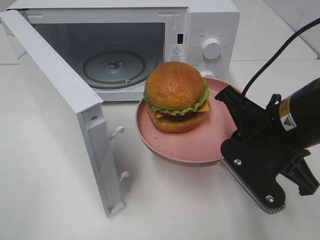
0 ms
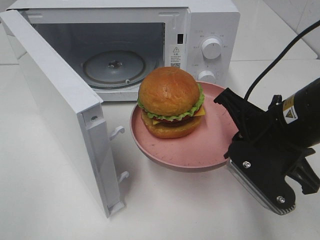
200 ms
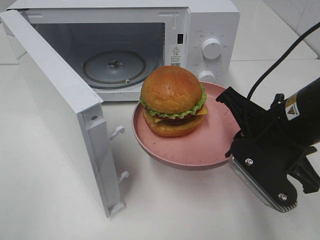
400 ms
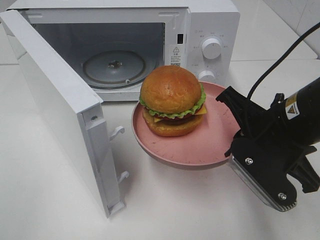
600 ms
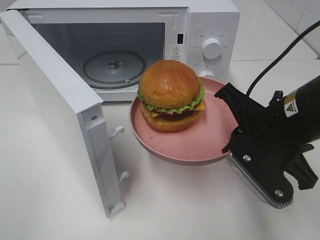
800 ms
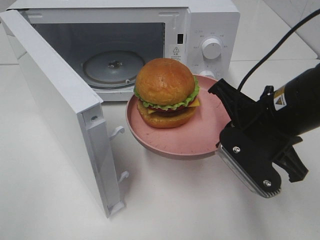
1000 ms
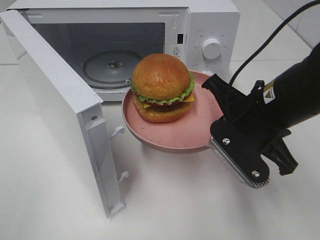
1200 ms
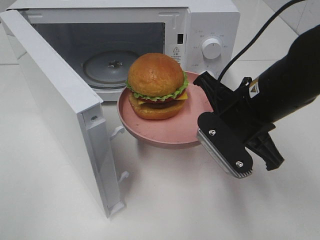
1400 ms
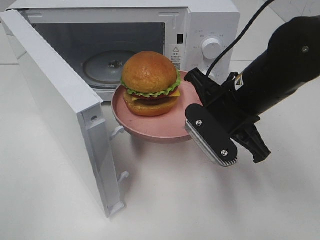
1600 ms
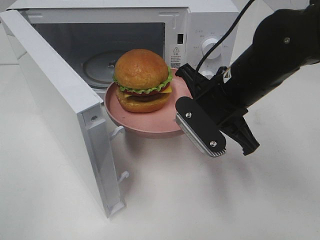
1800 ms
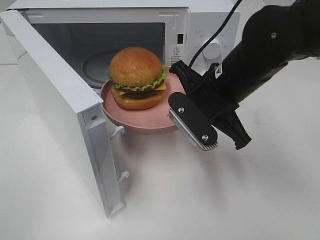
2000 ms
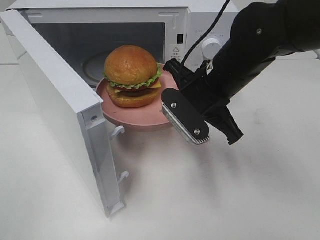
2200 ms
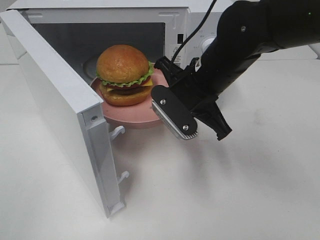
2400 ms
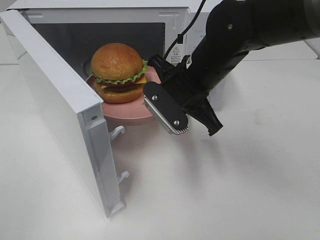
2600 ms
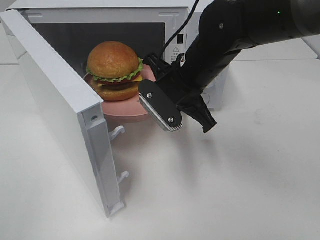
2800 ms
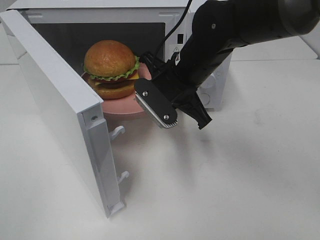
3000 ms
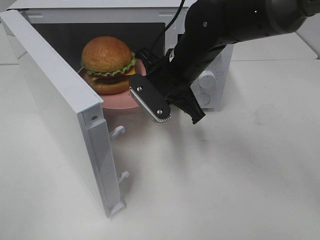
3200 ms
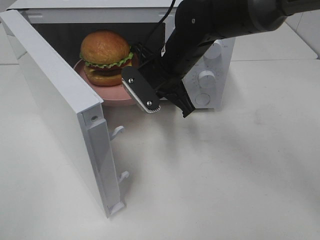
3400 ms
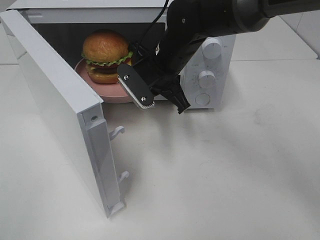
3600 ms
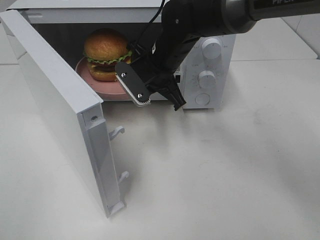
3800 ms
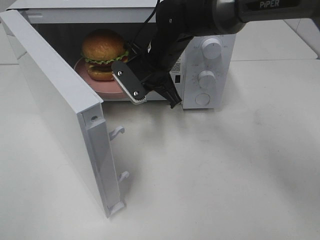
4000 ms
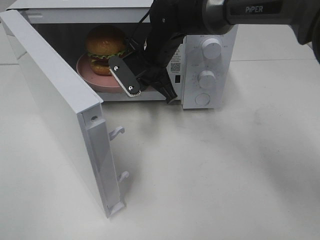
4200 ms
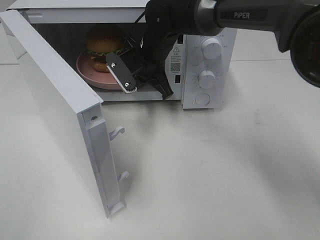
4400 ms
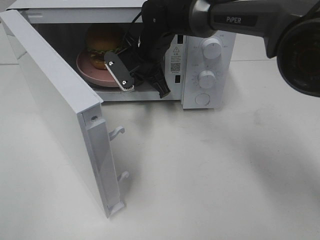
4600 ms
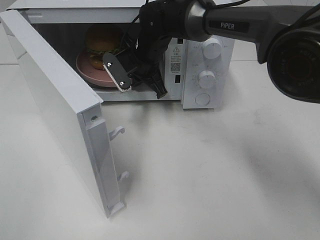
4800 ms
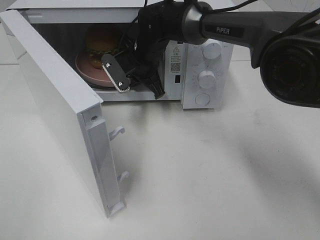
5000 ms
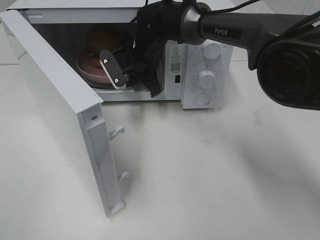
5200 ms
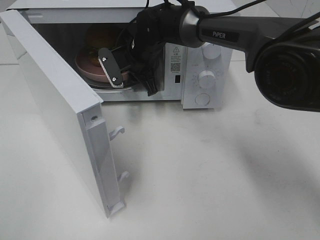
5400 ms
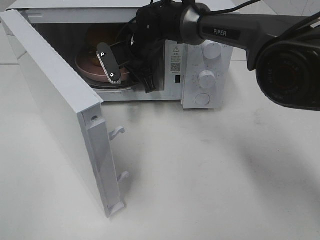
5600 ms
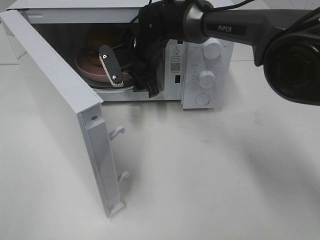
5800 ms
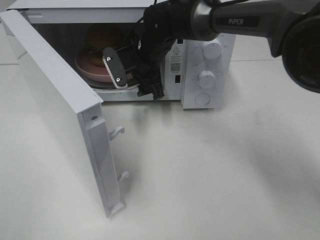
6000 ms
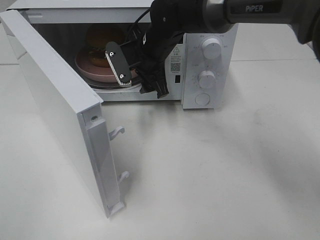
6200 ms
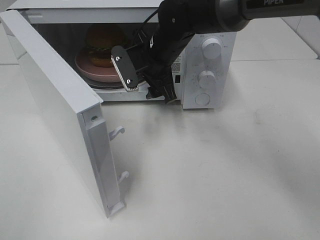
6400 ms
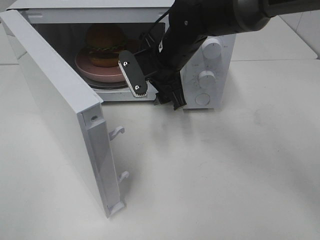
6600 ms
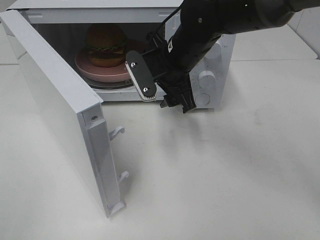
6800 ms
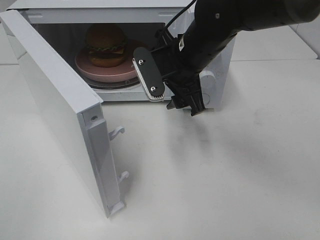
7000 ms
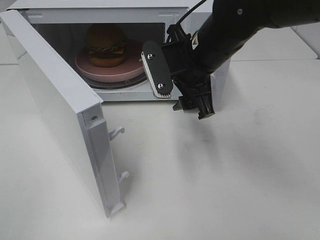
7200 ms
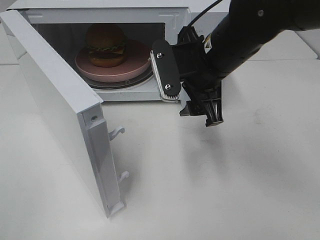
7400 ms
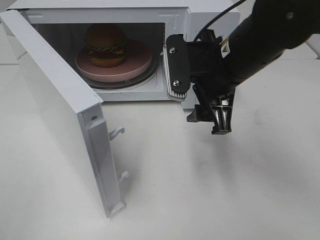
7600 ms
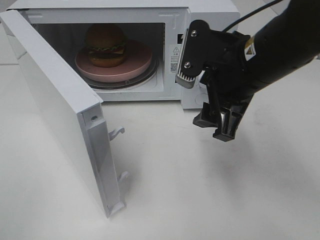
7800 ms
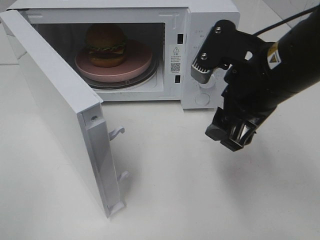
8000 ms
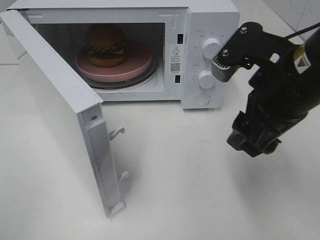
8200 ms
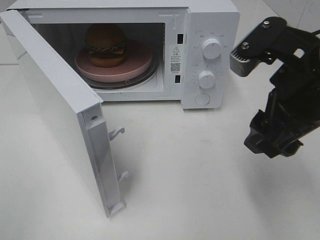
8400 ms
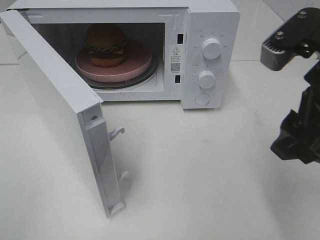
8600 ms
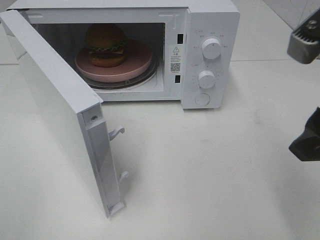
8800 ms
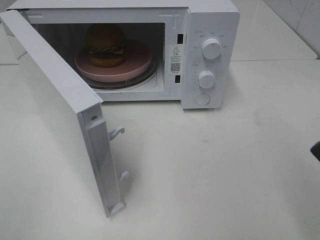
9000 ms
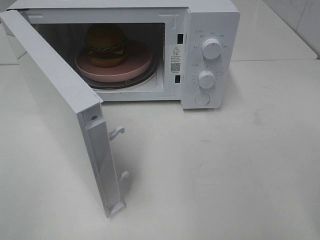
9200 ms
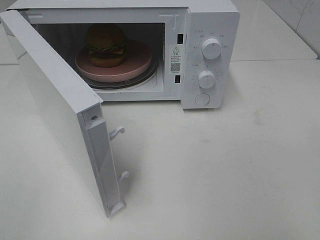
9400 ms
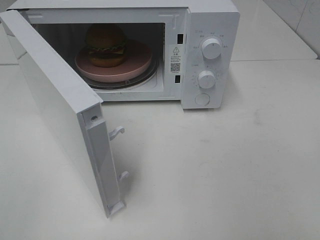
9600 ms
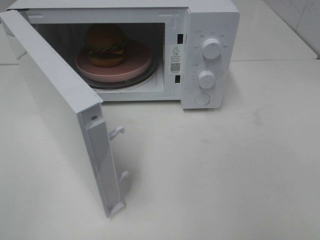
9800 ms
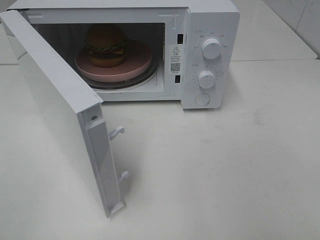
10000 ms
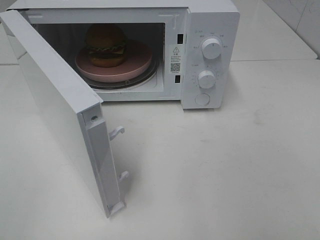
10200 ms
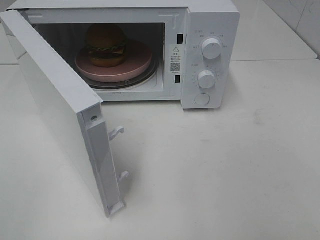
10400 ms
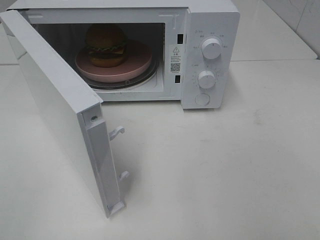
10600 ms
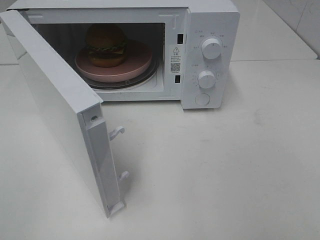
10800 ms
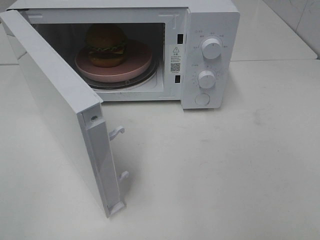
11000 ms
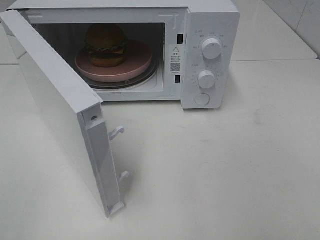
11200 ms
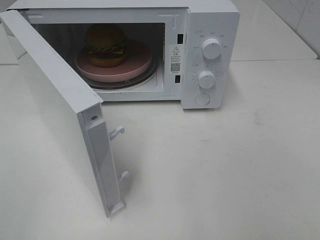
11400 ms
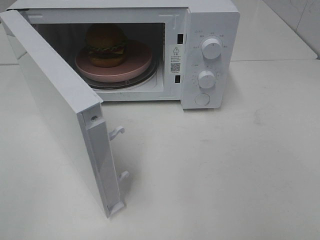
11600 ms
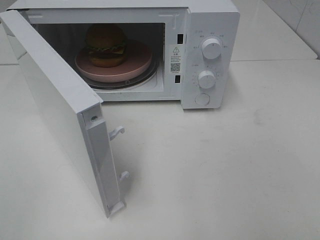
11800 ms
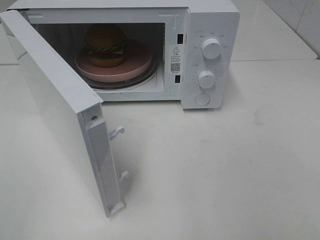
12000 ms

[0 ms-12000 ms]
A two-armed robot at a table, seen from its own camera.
Task of the whole recording: Heat the burger.
Step, 0 ms to 5800 ms: Right hand: place the plate in the microwave.
0 ms to 1600 ms: The right gripper is displaced forward by approximately 5 cm.
1600 ms to 3000 ms: The right gripper is displaced forward and to the left by roughly 10 cm.
3000 ms to 4400 ms: The right gripper shifts about 10 cm forward and to the left.
4400 ms to 6000 ms: The right gripper opens up.
6000 ms to 7600 ms: The right gripper heads backward, to the right and upward, covering approximately 20 cm.
7600 ms to 9000 ms: The right gripper travels backward, to the right and upward by roughly 20 cm.
9000 ms to 10400 ms: The right gripper travels backward and to the right by about 15 cm.
10400 ms to 12000 ms: The two grippers keep their place.

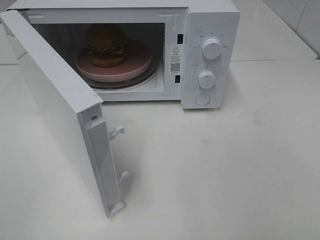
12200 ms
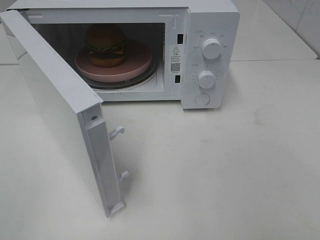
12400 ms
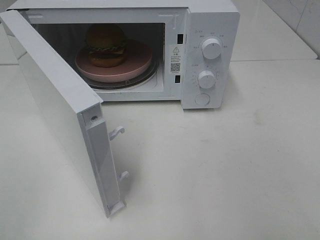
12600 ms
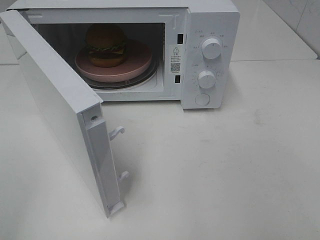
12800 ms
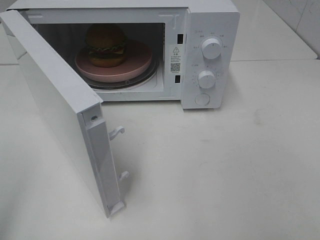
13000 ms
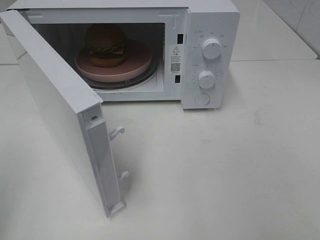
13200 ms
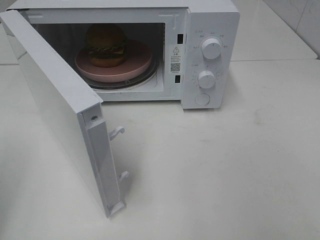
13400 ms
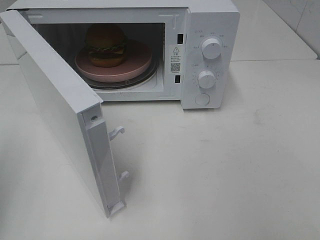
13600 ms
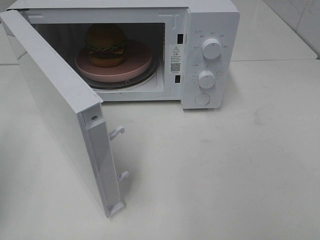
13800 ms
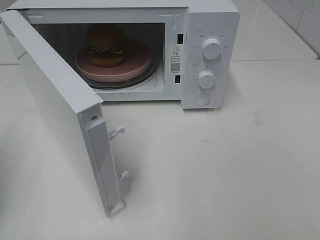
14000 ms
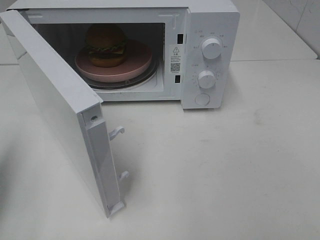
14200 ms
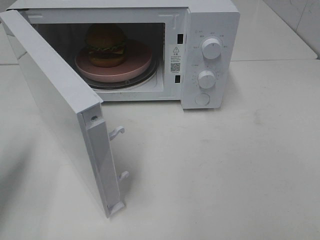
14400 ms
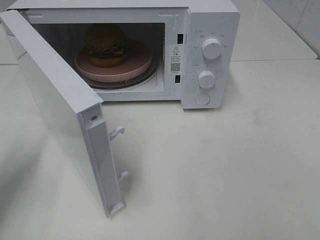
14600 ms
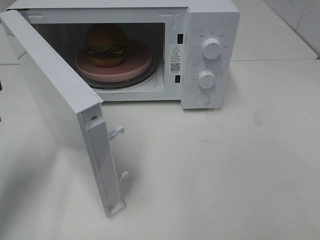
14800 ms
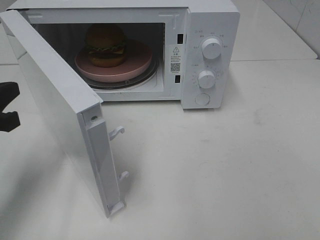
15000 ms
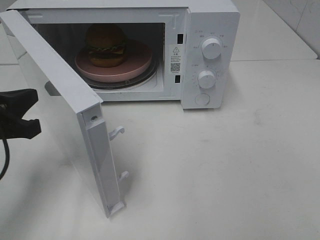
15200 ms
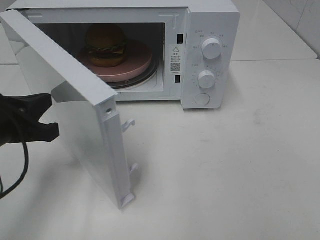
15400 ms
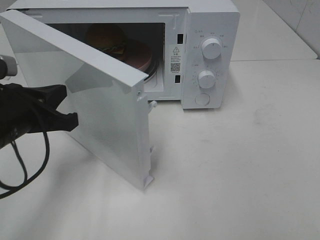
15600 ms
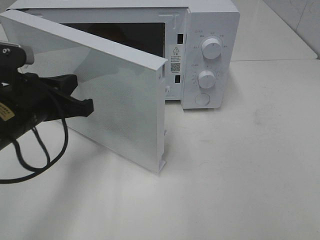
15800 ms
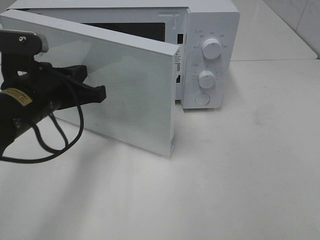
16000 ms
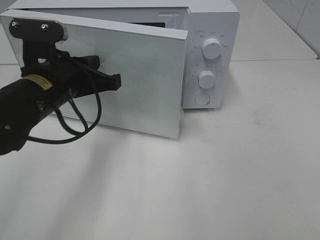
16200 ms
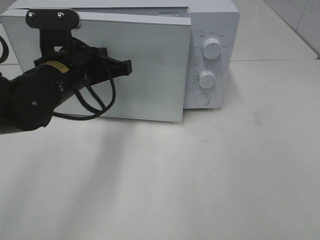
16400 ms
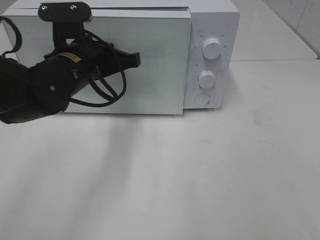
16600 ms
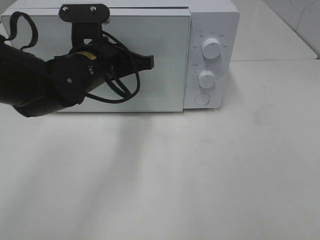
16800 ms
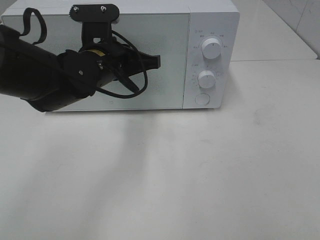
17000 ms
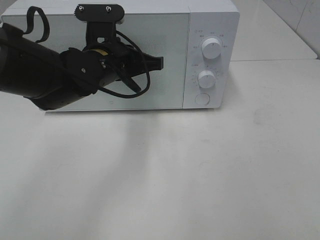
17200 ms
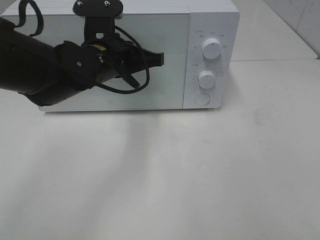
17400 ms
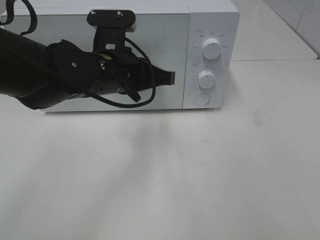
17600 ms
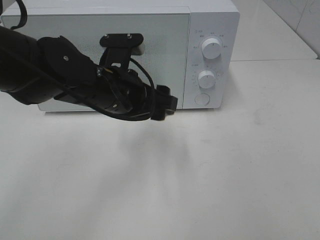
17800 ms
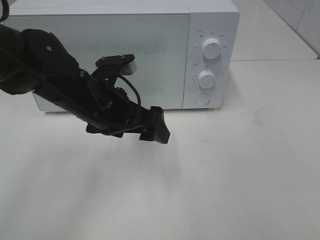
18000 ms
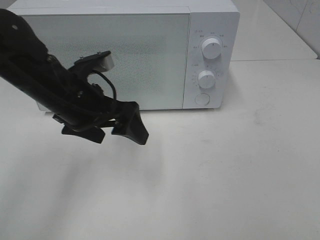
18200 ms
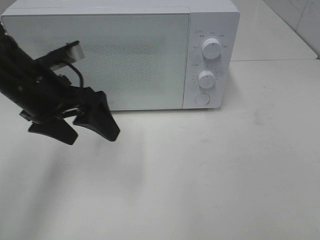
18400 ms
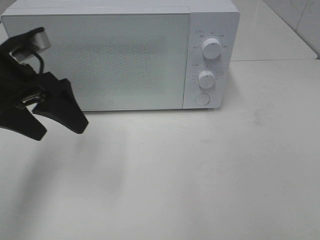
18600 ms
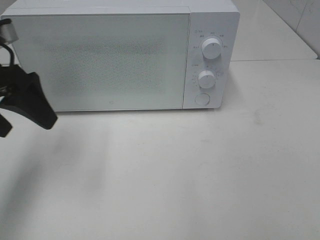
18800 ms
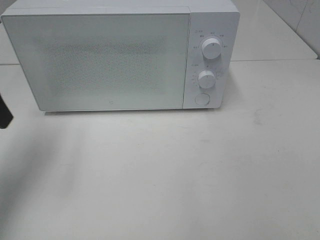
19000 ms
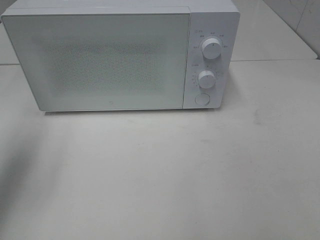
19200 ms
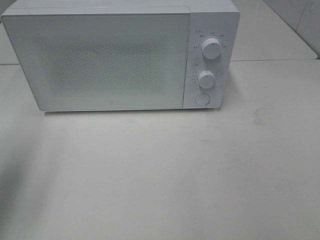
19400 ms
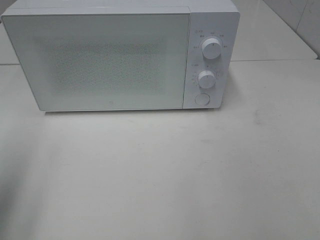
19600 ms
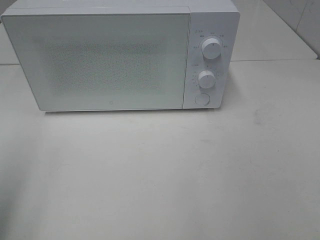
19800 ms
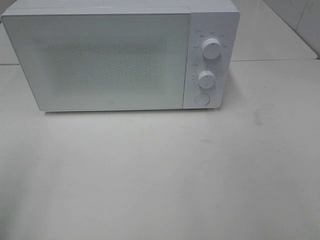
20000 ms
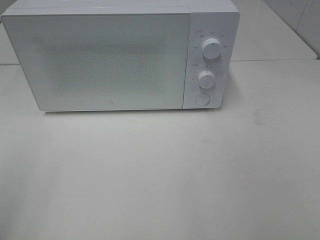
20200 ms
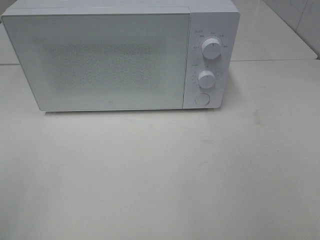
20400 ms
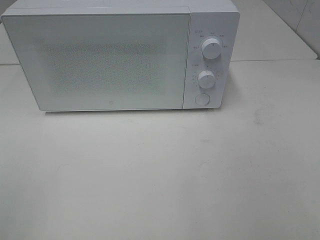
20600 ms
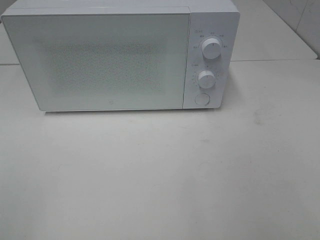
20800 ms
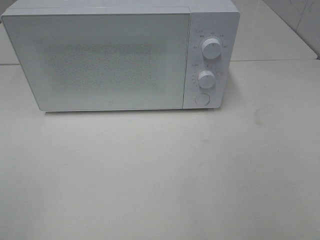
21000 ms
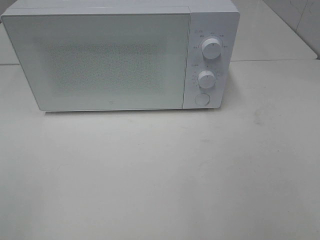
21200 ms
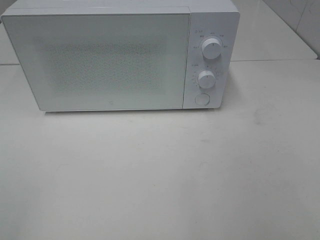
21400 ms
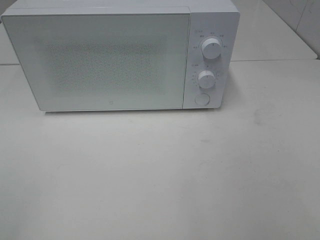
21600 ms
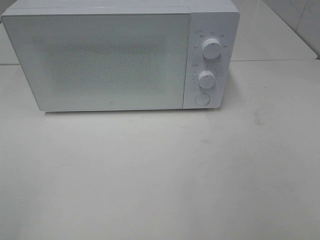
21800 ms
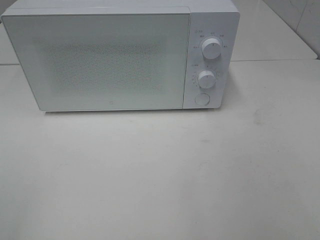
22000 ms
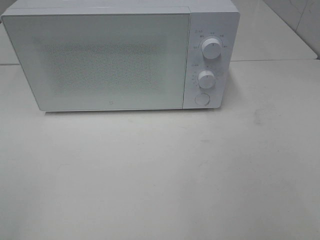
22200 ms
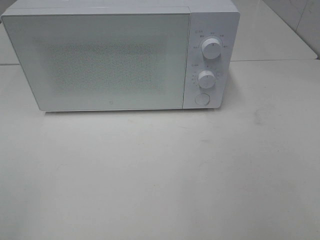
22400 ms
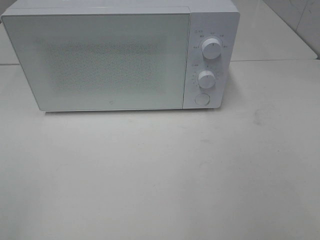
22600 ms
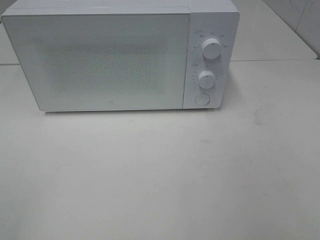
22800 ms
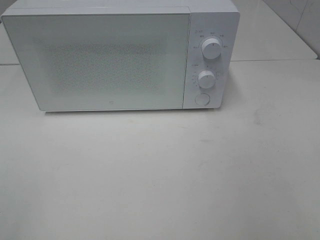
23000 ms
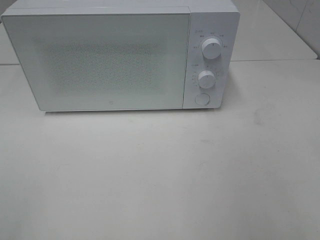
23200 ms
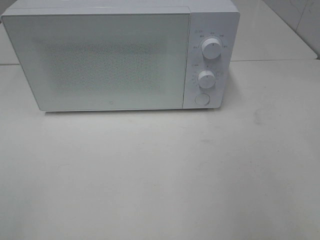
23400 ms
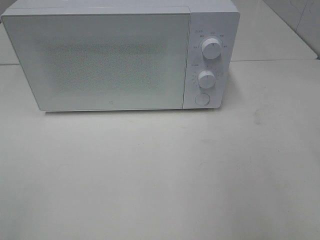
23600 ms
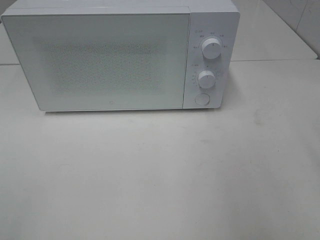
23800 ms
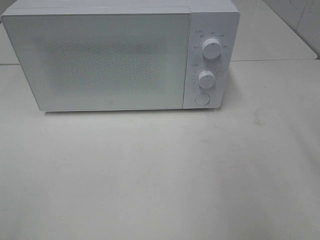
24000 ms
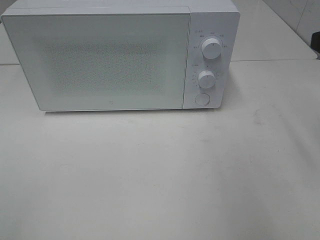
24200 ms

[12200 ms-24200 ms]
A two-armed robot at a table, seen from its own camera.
Task of the whole recording: Heat the burger.
Step, 12200 ms to 17600 ms: Left hand: close the microwave door.
13800 ms to 15200 ms: The left gripper shifts some 15 cm to the right, downward and forward.
15200 ms to 16600 ms: The left gripper is displaced to the right and forward by about 20 cm.
16600 ms to 18200 ms: The left gripper opens.
18200 ms to 19800 ms: The left gripper moves to the left, backward and upward, about 30 cm.
19800 ms to 21200 ms: The left gripper shifts some 10 cm backward.
21200 ms to 22600 ms: Both grippers stay about where they are.
